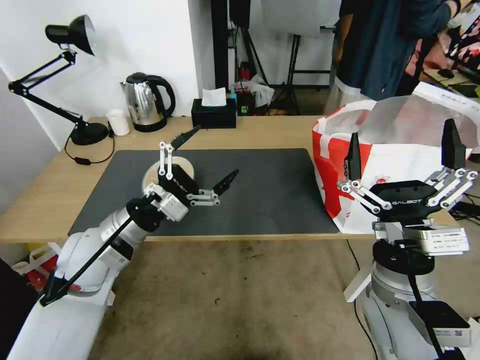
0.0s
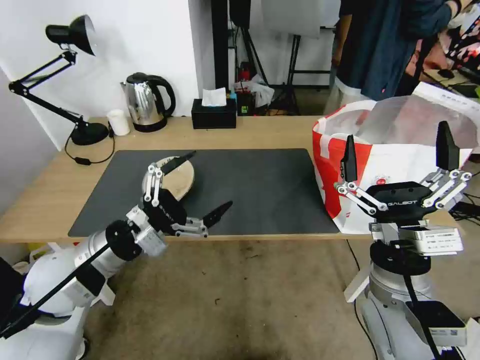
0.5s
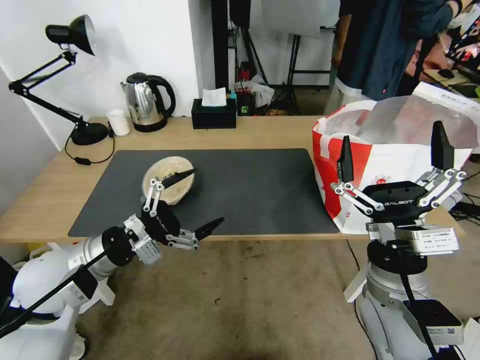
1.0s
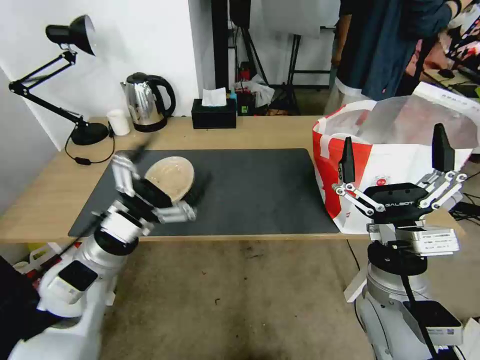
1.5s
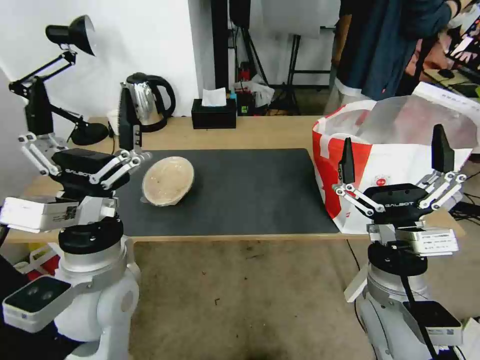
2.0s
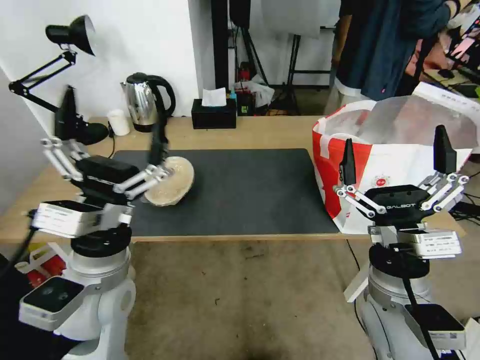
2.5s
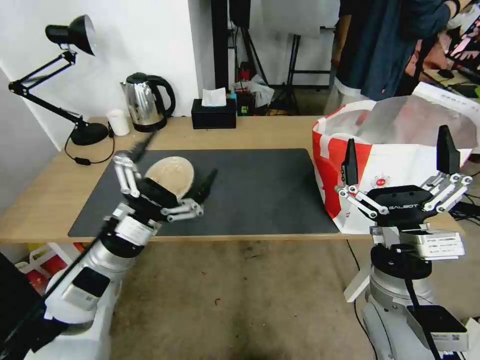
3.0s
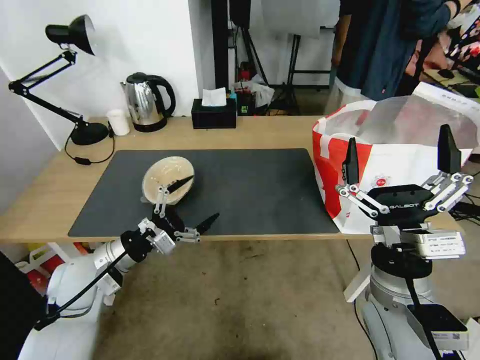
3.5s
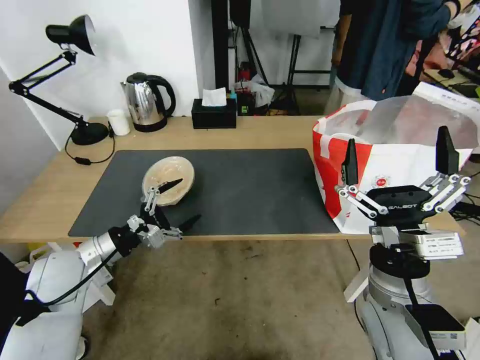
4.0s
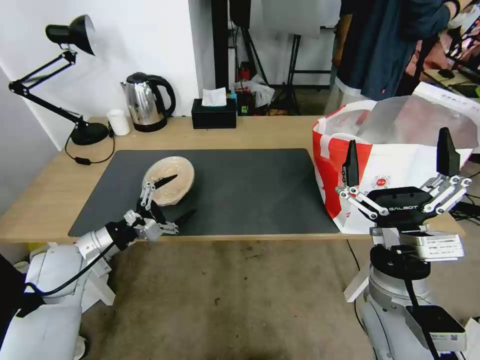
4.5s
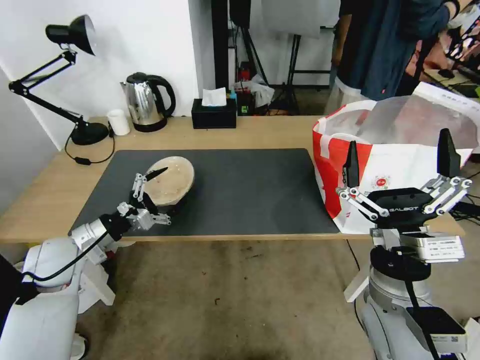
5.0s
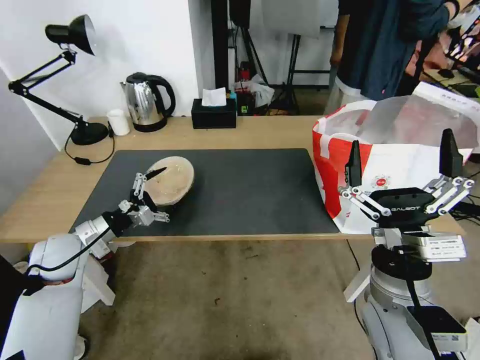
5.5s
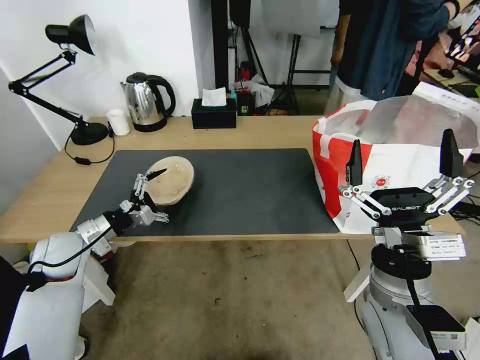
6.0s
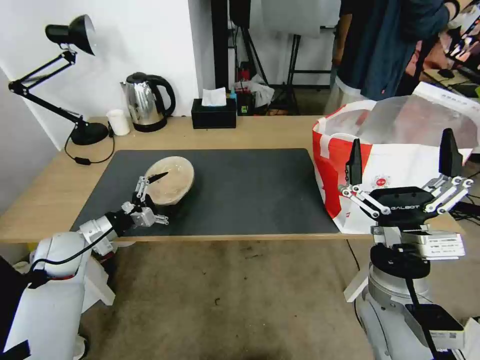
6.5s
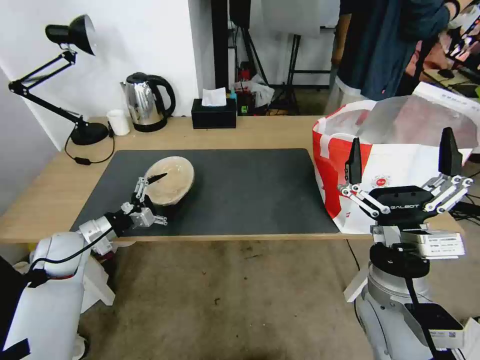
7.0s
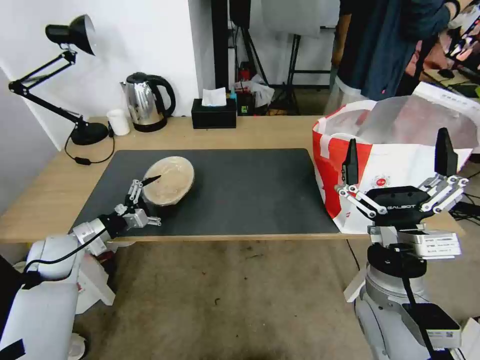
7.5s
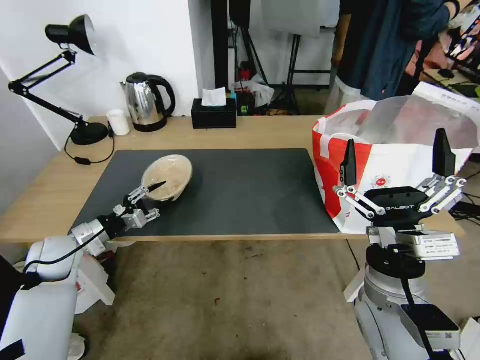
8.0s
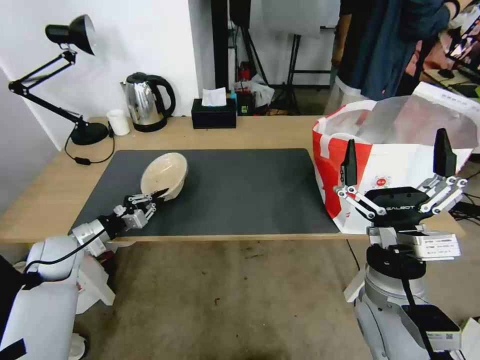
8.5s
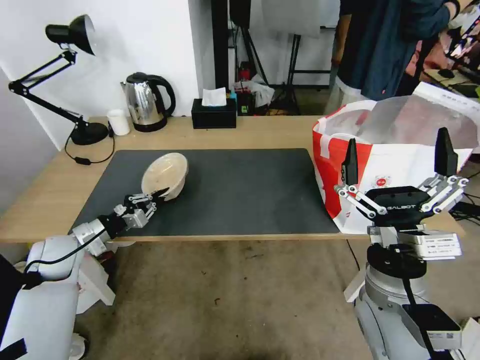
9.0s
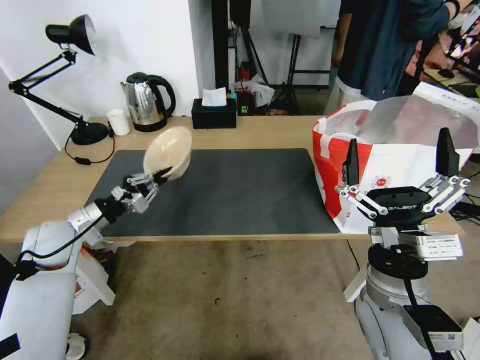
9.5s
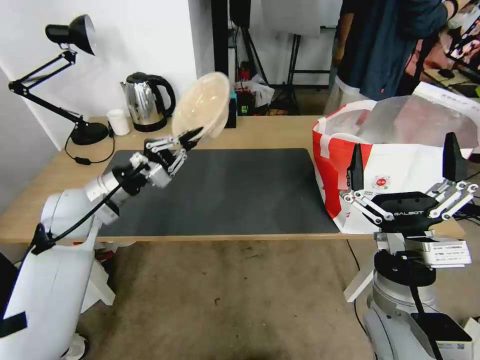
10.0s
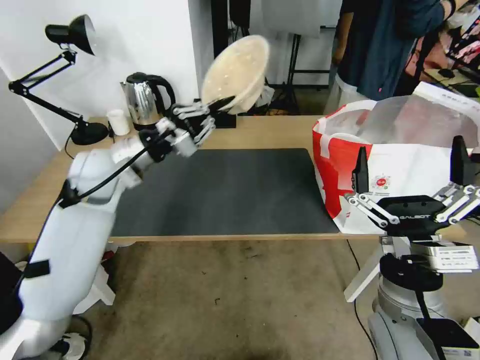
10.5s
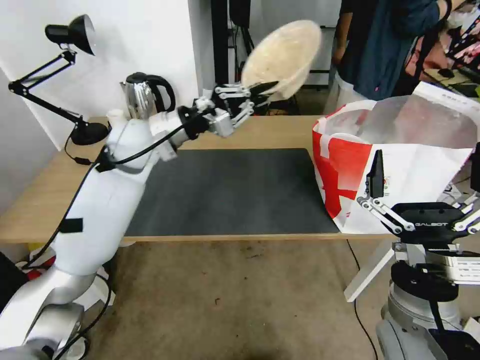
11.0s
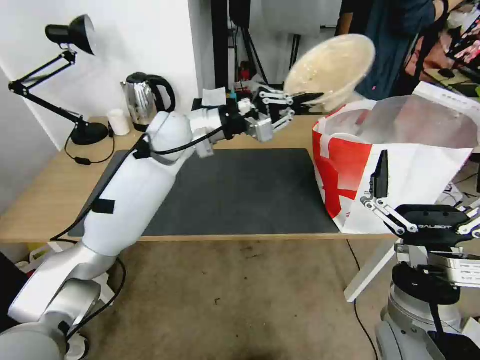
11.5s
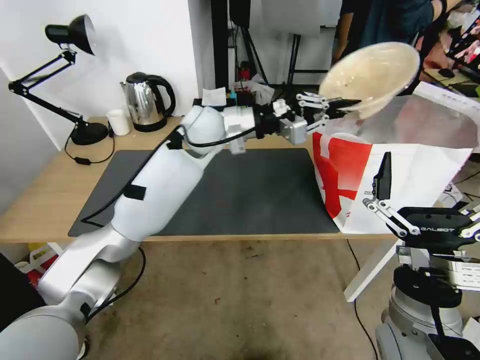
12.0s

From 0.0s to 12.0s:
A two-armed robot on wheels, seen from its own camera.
Task of the whole recording: Pick up the trash from the table and place it into the takeout bag.
From 0.0s to 2.0s: The left gripper travels backward and to the right by approximately 10 cm.
From 2.0s to 4.0s: The left gripper moves to the left, downward and forward, roughly 20 cm.
From 4.0s to 6.0s: The left gripper heads forward, covering approximately 5 cm.
From 6.0s to 8.0s: The left gripper closes.
From 8.0s to 10.0s: The left gripper shifts approximately 15 cm upward and to the right, and closes.
From 10.0s to 12.0s: The left gripper travels to the right, forward and upward by some 30 cm.

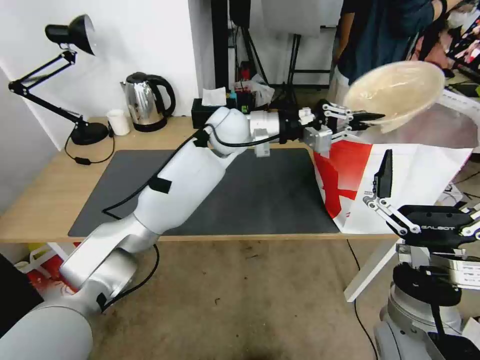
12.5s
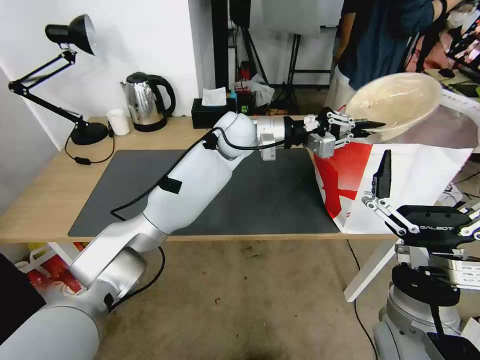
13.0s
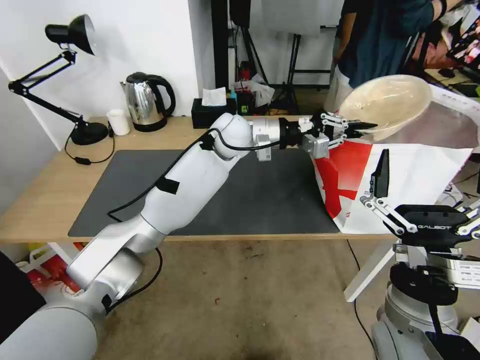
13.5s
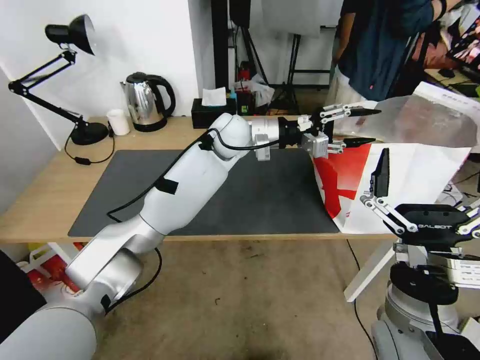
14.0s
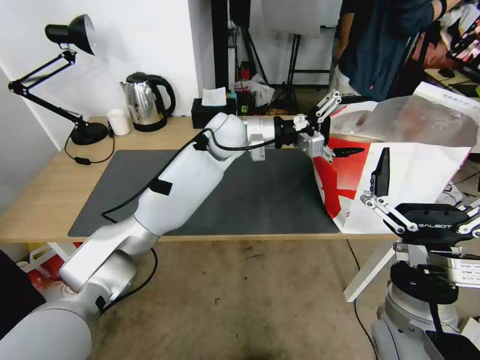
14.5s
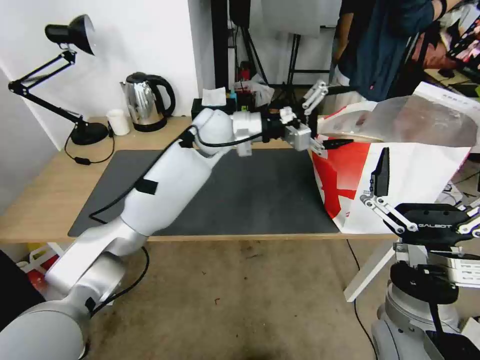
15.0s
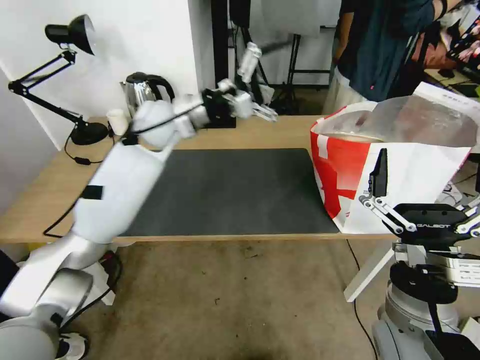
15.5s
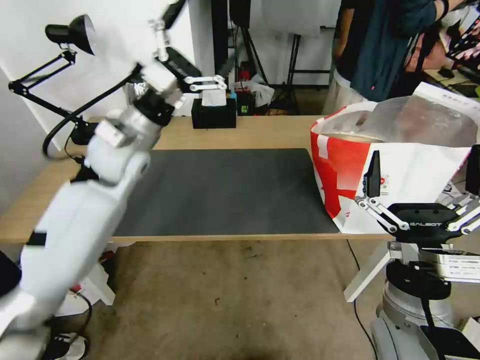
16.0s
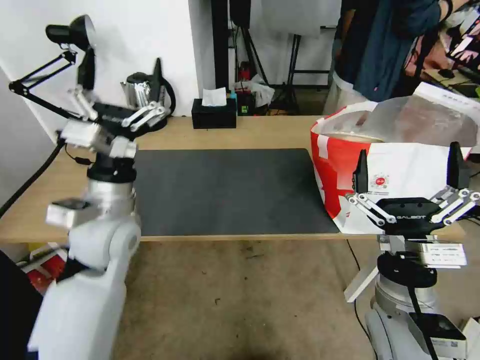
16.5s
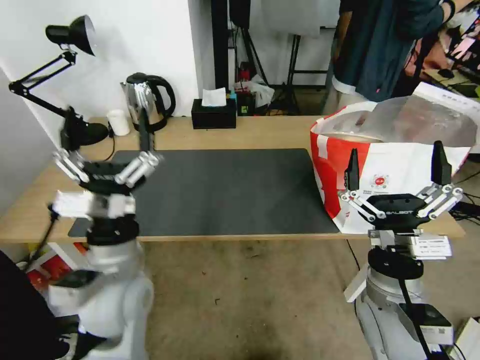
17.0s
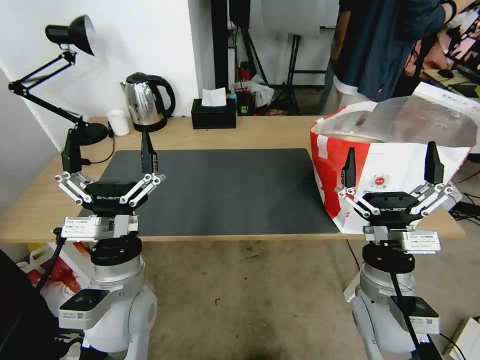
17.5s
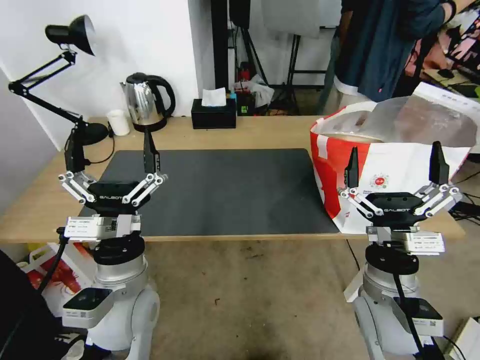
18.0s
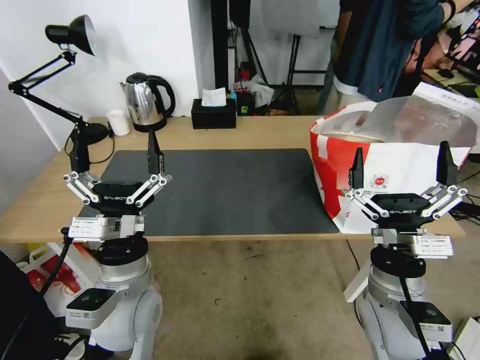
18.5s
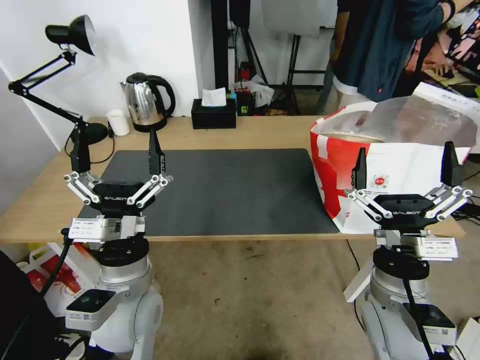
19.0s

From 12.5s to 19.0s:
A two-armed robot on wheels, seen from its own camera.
Task of the whole recording: Pick up the trash from the table and place it into the takeout bag.
From 12.5s to 14.5s: The left gripper opens up.
From 14.5s to 17.0s: The left gripper is displaced backward and to the left by approximately 35 cm.
From 17.0s to 19.0s: The grippers stay close to where they were, moving slightly.
